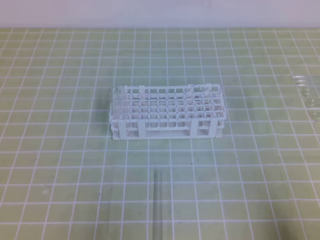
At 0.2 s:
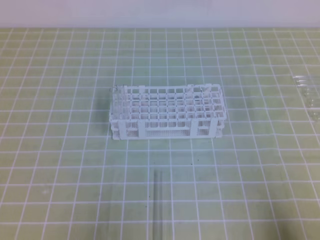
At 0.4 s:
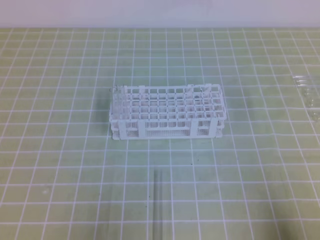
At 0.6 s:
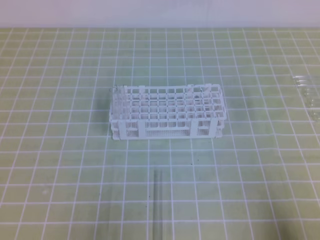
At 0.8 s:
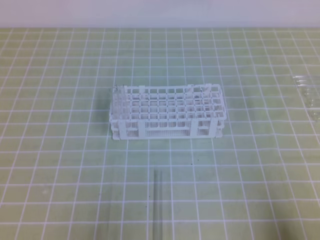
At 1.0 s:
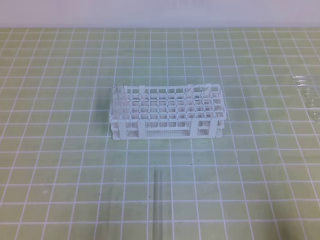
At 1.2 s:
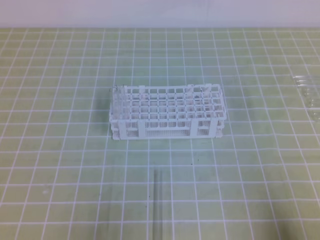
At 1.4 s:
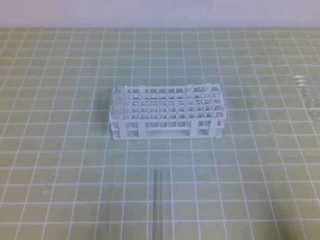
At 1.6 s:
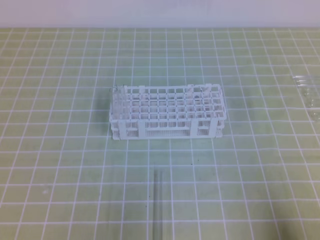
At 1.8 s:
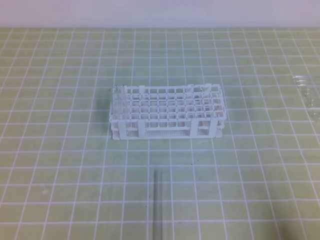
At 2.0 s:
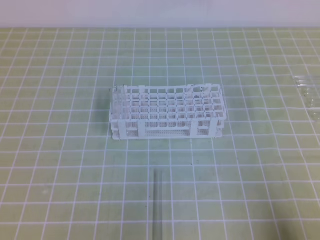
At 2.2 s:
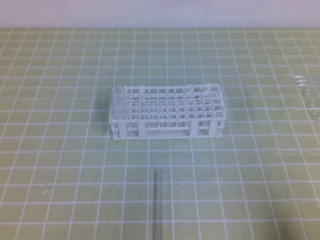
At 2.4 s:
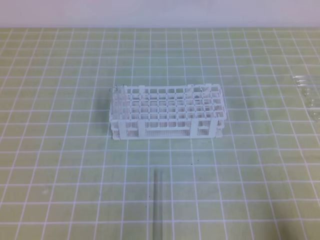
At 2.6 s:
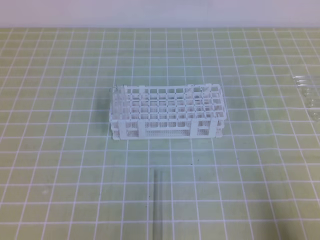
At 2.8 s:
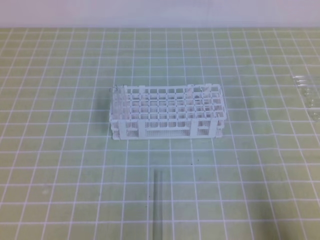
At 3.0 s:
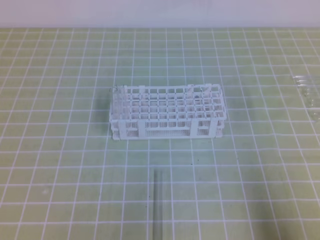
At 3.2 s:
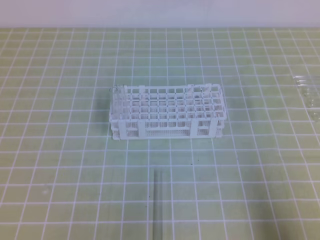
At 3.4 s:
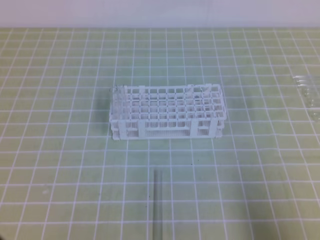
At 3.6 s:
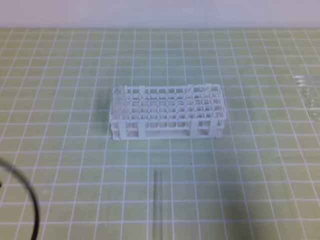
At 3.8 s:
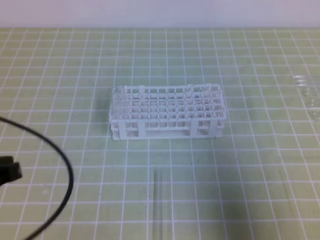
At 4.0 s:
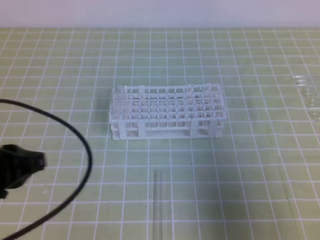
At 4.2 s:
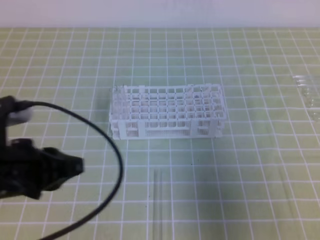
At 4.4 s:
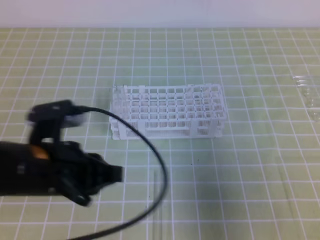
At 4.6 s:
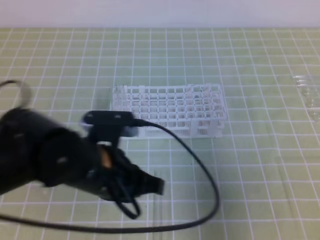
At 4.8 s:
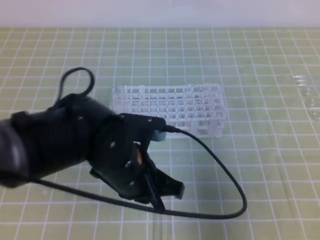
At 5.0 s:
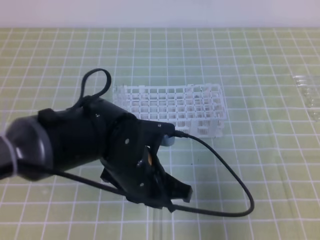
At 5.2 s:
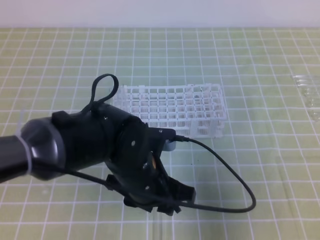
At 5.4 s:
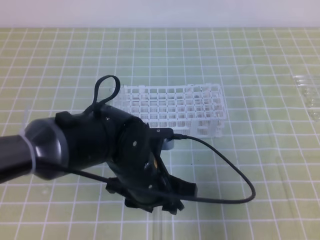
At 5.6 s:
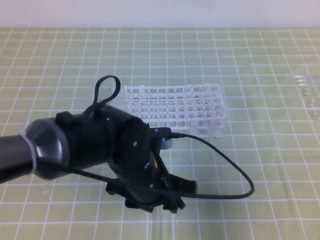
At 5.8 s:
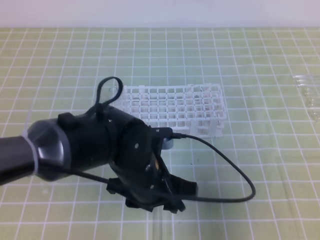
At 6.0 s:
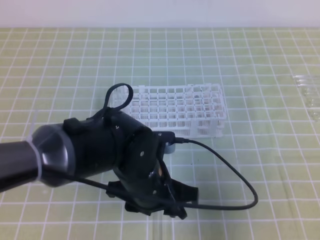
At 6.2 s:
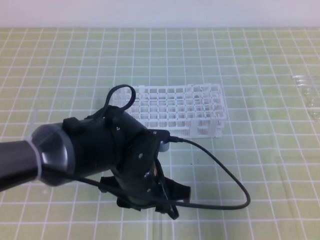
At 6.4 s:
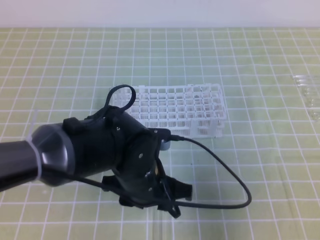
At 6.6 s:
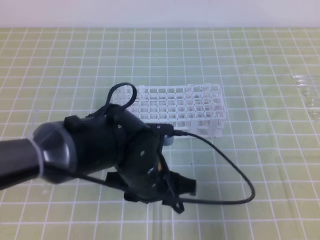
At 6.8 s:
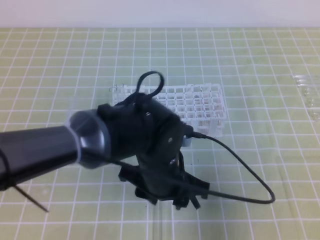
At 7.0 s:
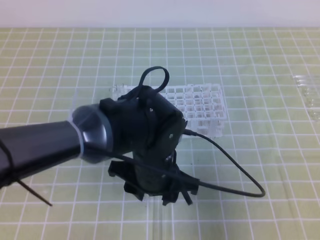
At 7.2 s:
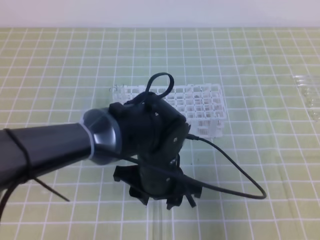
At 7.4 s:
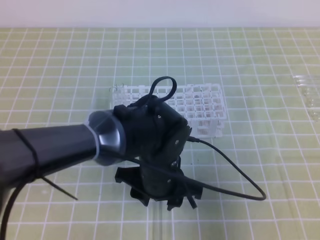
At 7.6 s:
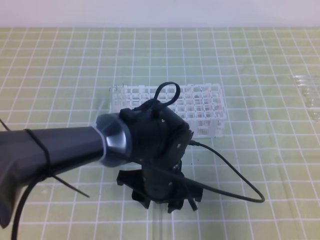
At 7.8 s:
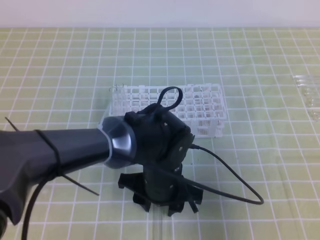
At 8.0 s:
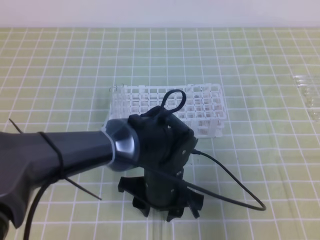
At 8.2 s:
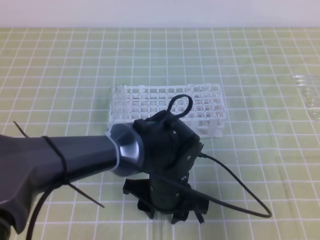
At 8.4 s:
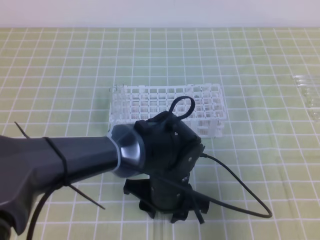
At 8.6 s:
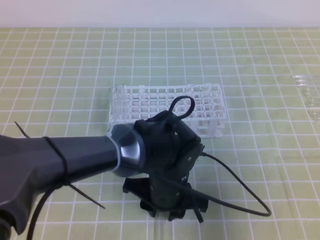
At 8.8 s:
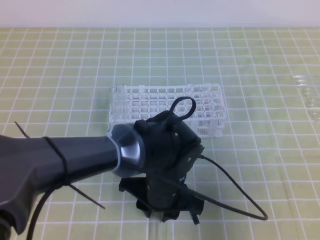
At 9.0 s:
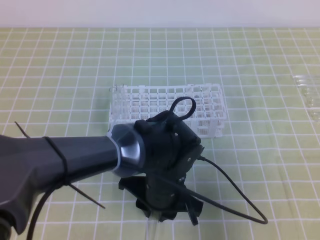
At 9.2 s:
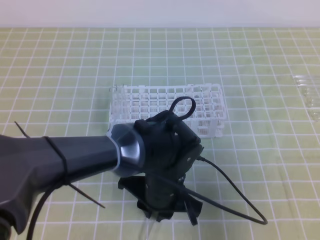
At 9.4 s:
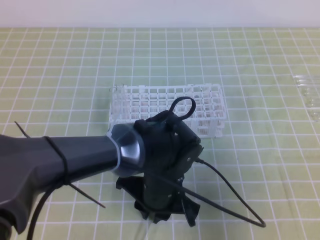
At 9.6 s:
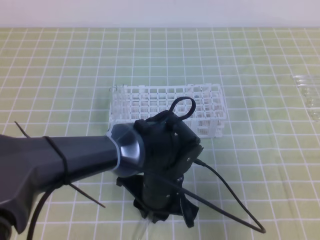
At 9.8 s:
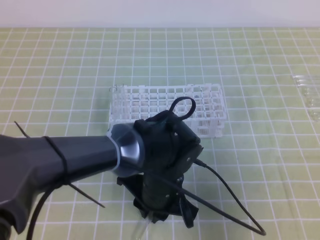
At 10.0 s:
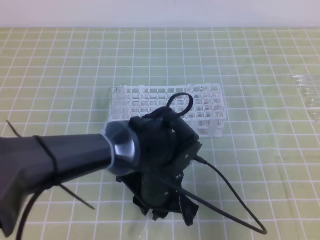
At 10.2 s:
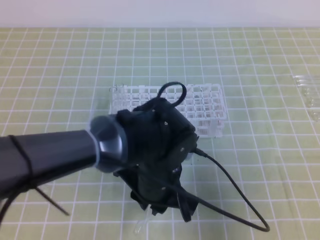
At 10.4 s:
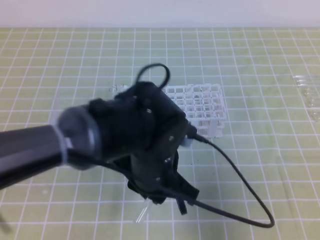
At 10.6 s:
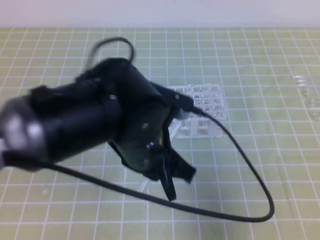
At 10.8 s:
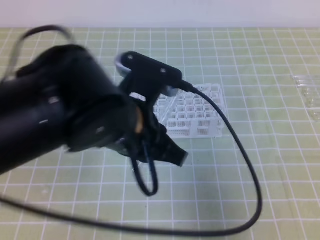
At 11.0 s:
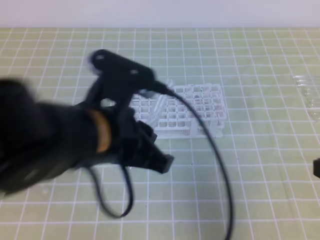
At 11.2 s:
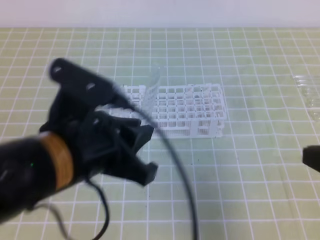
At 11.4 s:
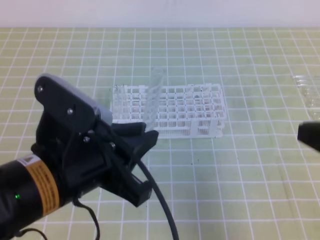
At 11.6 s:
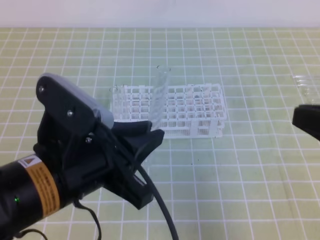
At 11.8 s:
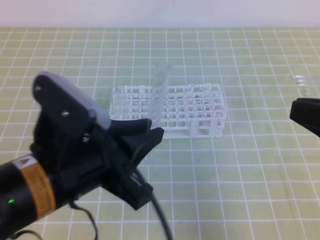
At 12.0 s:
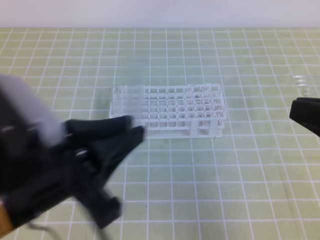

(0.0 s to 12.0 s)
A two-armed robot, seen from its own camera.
3.0 s - 4.4 s: The right gripper travels upward and forward by approximately 10 cm. The left gripper is displaced forward, to the right and upward by some 20 cm.
4.4 s - 6.0 s: The left gripper shifts approximately 15 cm to the right and downward, and opens up.
6.0 s - 7.6 s: There are only small adjustments of the grippers.
7.6 s - 9.0 s: The left gripper closes.
9.0 s - 10.4 s: The left gripper shifts about 5 cm upward, and closes up.
10.4 s - 12.0 s: The right gripper travels upward by approximately 5 cm. The left gripper heads to the left, backward and upward, covering approximately 20 cm.

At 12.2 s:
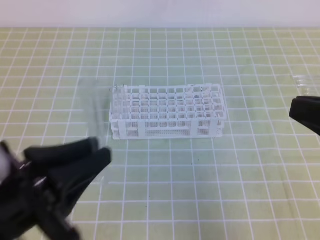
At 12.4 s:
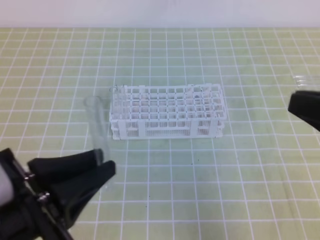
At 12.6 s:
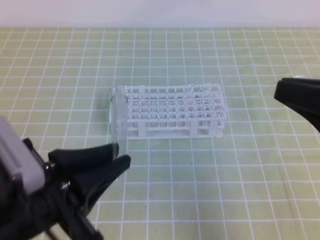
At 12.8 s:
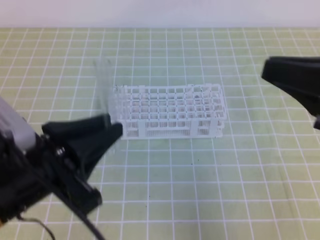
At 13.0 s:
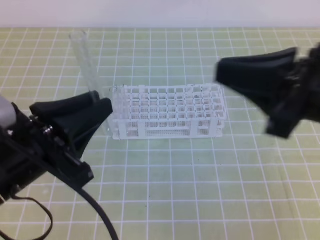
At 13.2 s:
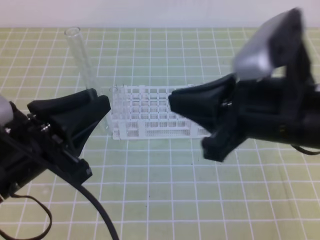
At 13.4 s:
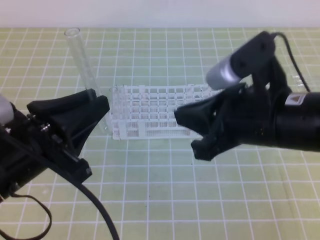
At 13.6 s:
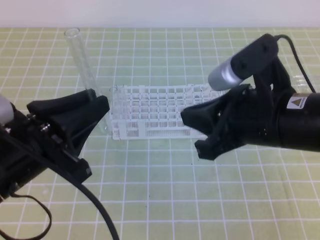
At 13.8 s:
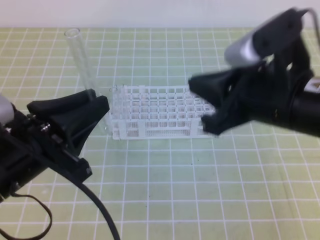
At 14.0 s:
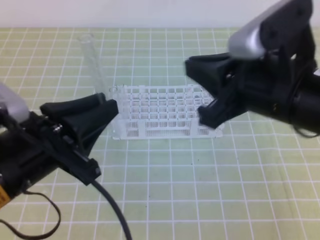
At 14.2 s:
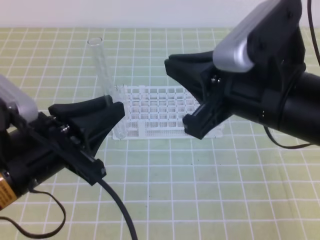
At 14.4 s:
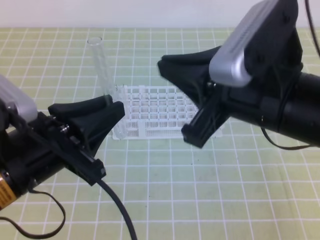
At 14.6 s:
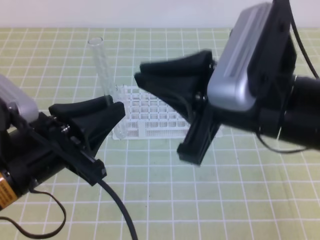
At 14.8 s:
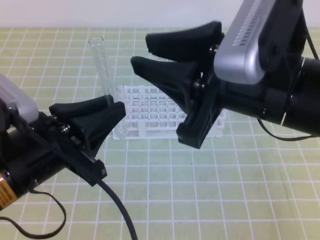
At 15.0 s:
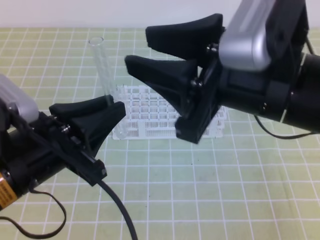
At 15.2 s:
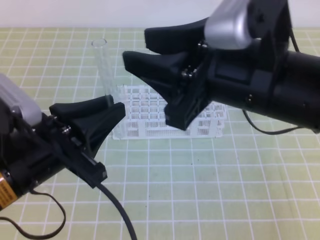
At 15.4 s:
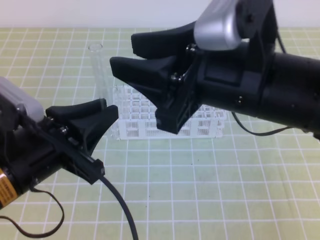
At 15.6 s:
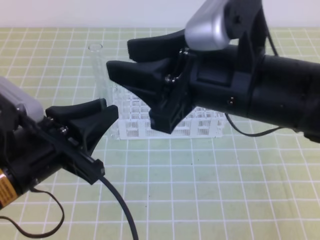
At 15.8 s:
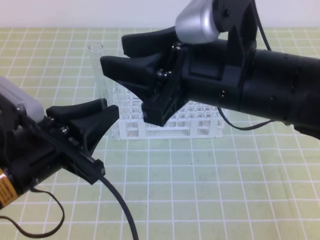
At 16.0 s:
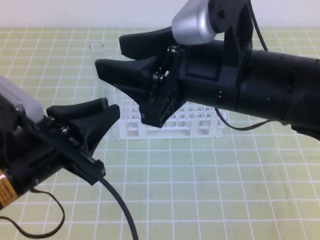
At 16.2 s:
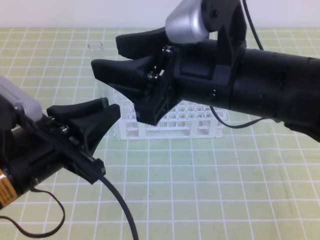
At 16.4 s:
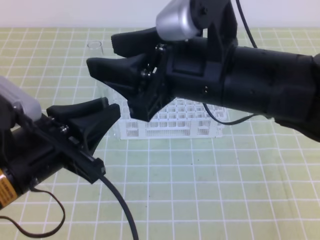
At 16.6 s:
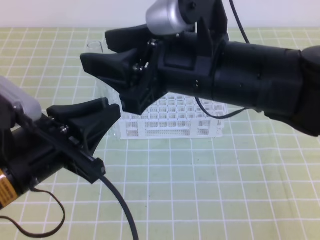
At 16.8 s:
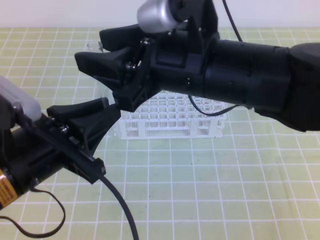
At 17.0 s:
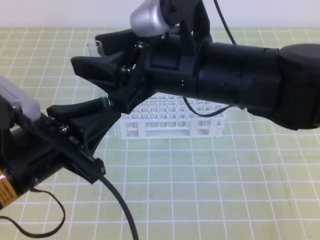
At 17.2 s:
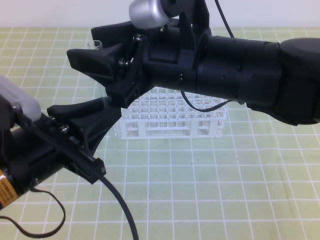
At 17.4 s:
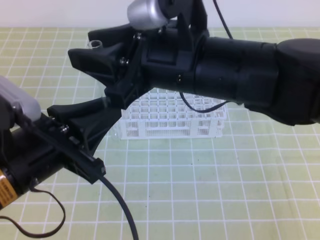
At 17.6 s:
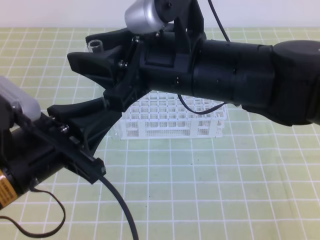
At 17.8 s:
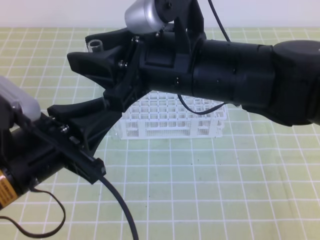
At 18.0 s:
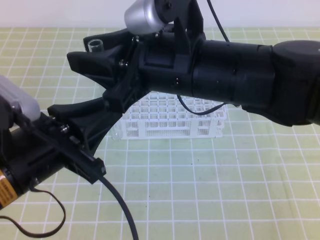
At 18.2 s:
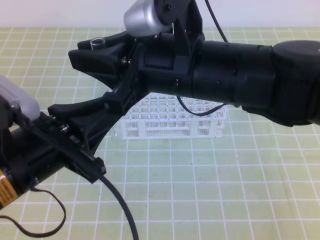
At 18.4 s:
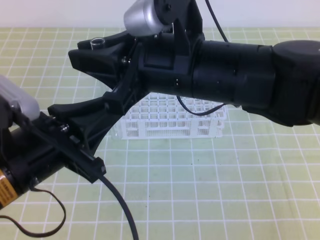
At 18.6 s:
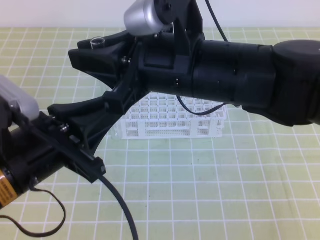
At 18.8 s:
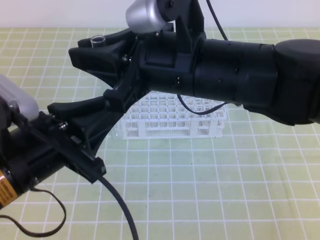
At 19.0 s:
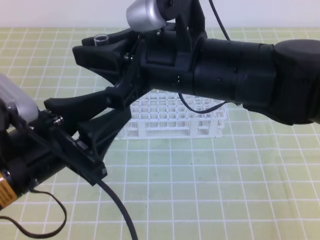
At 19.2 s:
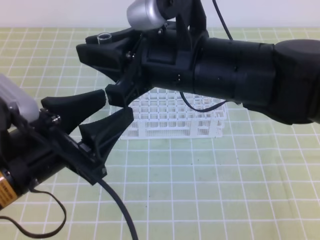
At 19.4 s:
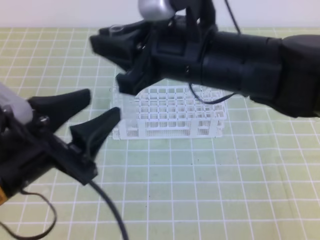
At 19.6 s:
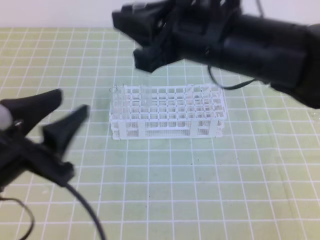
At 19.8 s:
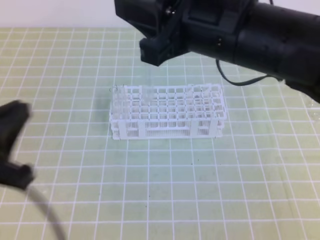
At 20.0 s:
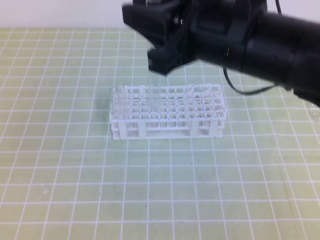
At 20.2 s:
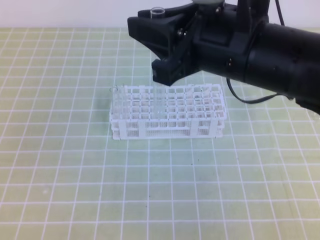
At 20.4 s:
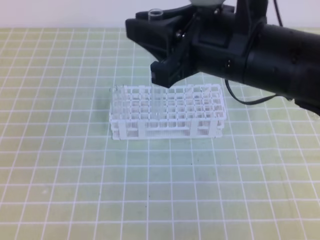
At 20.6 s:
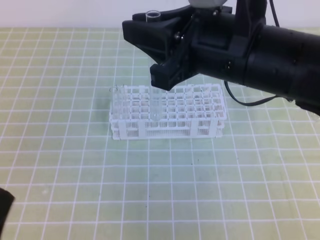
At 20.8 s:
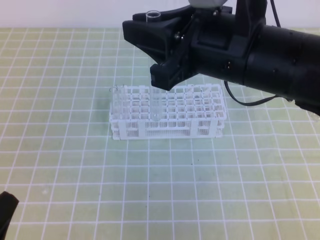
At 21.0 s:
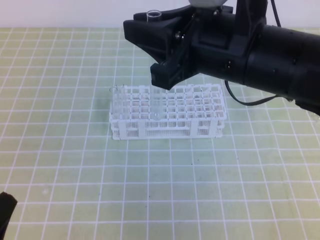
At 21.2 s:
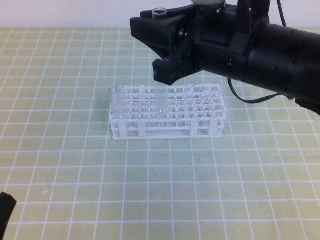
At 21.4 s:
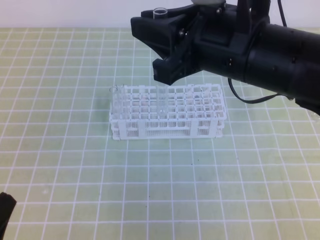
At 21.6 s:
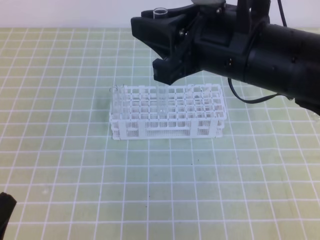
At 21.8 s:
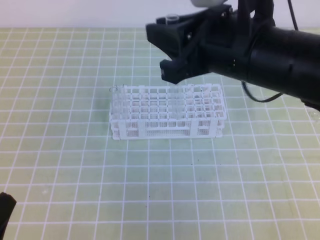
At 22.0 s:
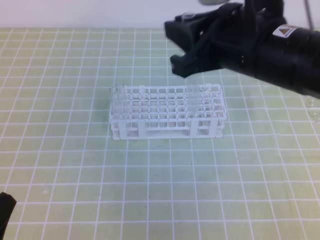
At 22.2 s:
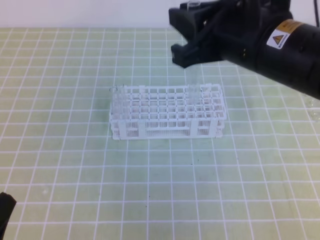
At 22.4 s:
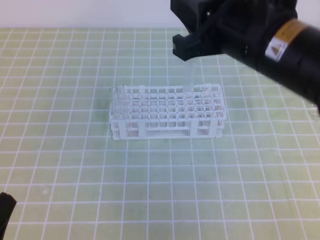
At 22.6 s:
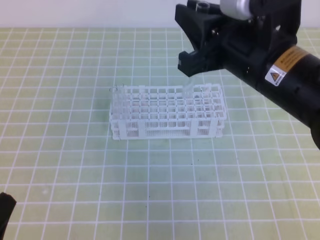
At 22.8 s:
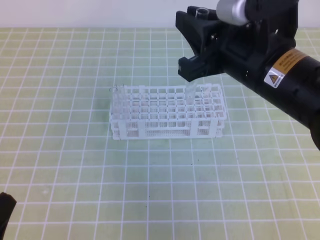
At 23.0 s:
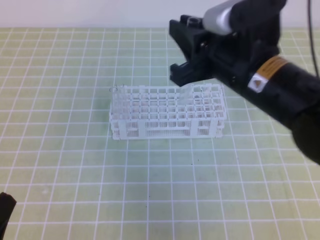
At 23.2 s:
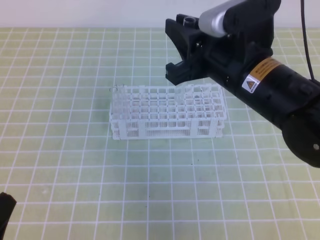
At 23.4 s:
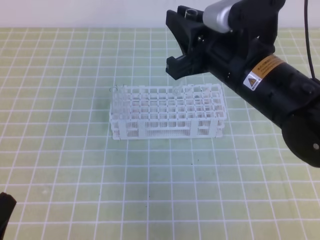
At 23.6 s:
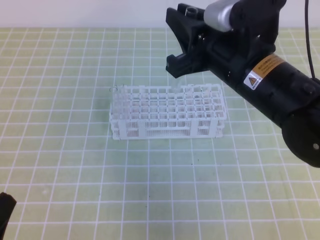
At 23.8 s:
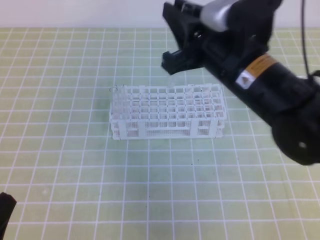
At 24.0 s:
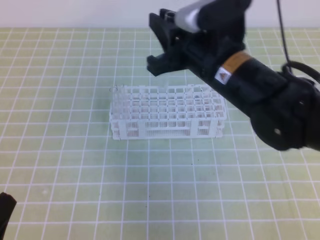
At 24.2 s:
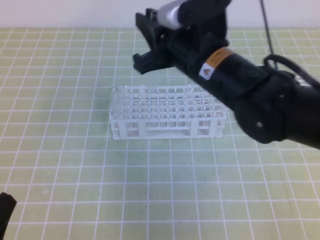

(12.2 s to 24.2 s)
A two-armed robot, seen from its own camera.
12.2 s - 13.8 s: The right gripper travels to the left and forward by approximately 15 cm. The left gripper shifts by about 5 cm.
13.8 s - 15.2 s: The right gripper ends up some 5 cm from where it was, and opens up.
15.2 s - 16.6 s: The right gripper moves roughly 5 cm.
16.6 s - 18.2 s: The right gripper closes up.
18.2 s - 19.8 s: The left gripper shifts some 5 cm to the left, and opens and closes again.
19.8 s - 21.2 s: The left gripper travels downward and backward by approximately 15 cm.
21.2 s - 22.6 s: The grippers stay close to where they were, moving slightly.
22.6 s - 24.2 s: The right gripper travels forward, to the left and downward by about 10 cm.
